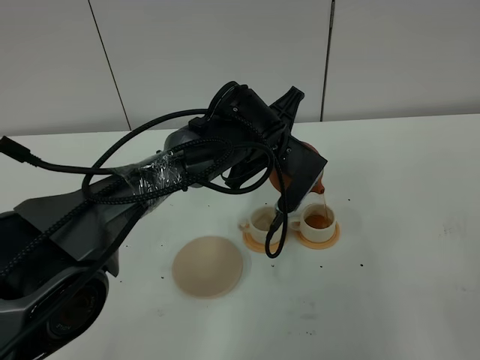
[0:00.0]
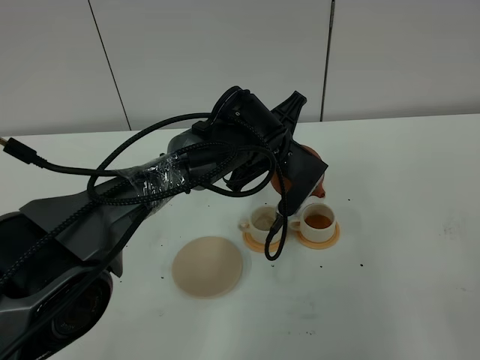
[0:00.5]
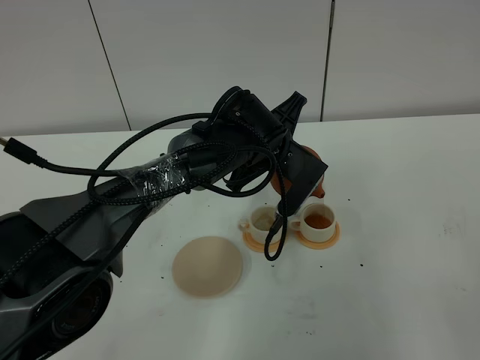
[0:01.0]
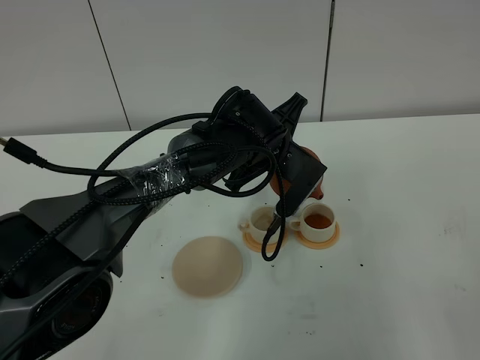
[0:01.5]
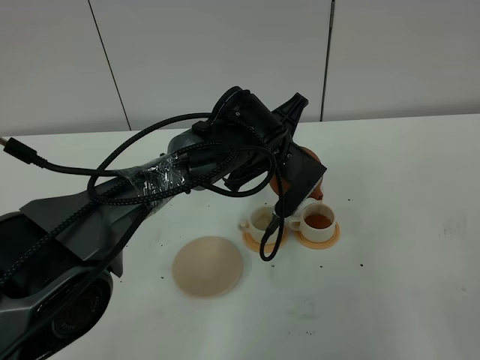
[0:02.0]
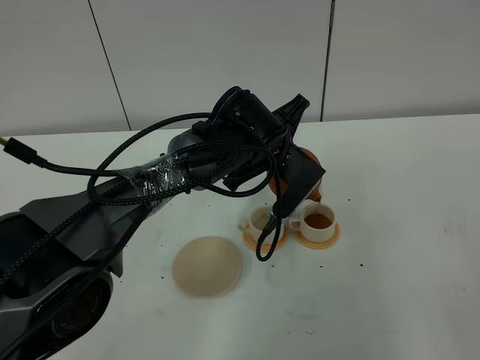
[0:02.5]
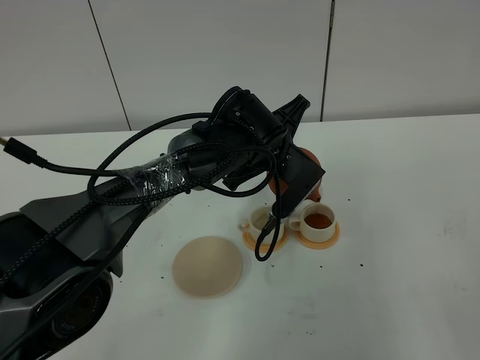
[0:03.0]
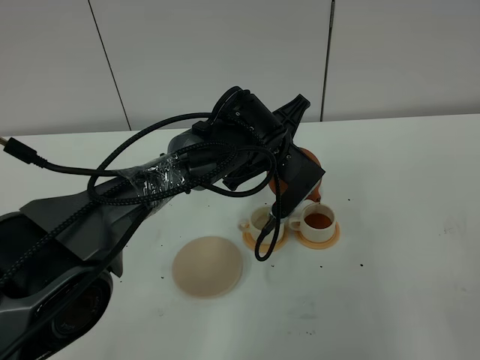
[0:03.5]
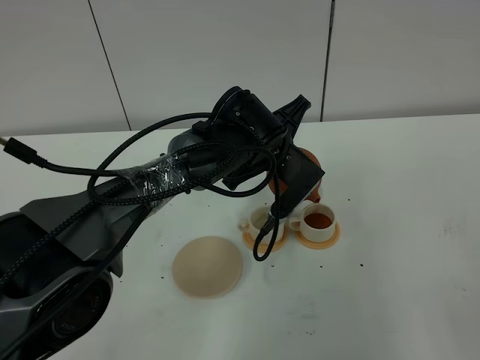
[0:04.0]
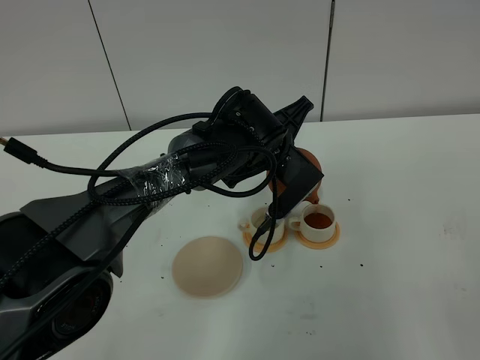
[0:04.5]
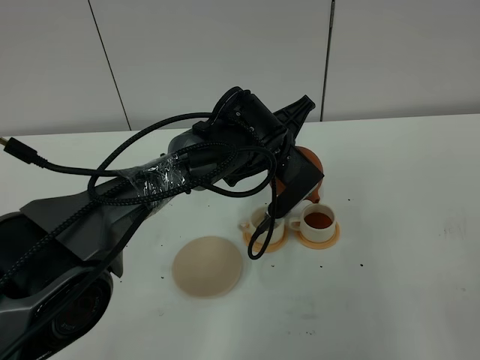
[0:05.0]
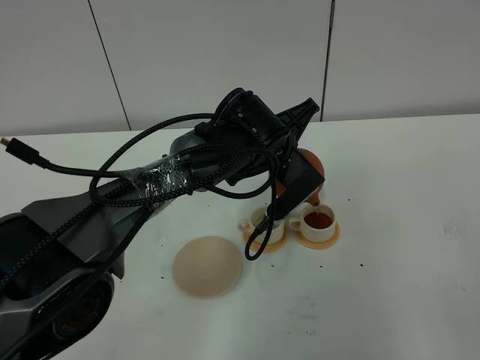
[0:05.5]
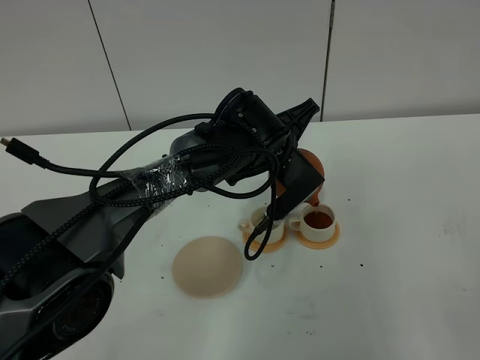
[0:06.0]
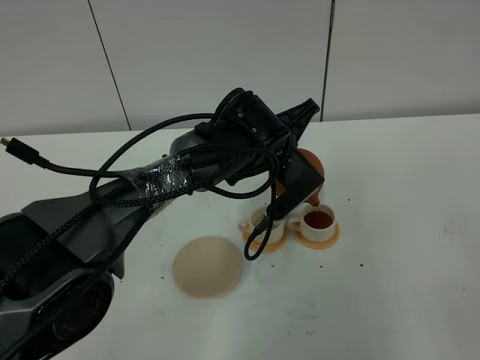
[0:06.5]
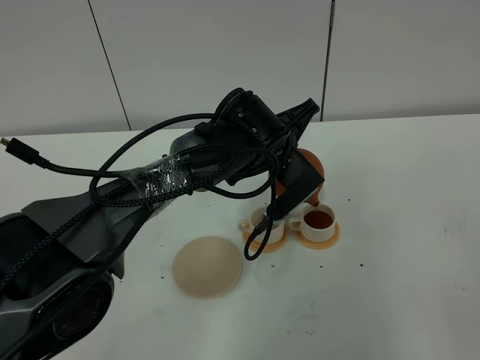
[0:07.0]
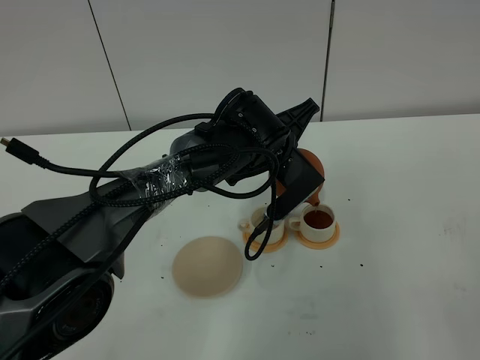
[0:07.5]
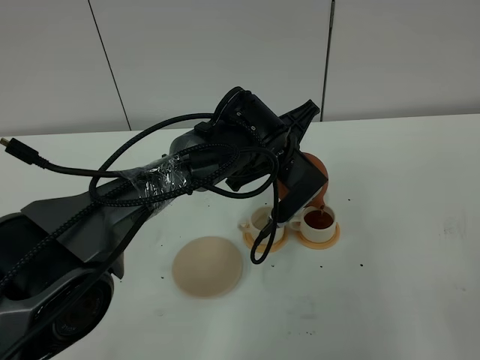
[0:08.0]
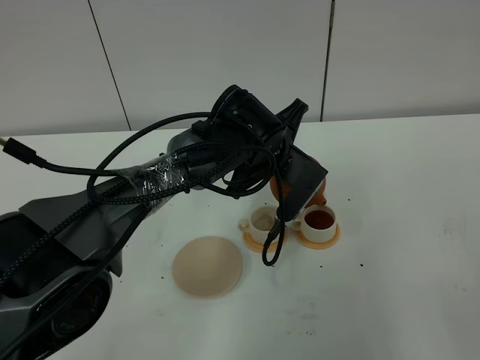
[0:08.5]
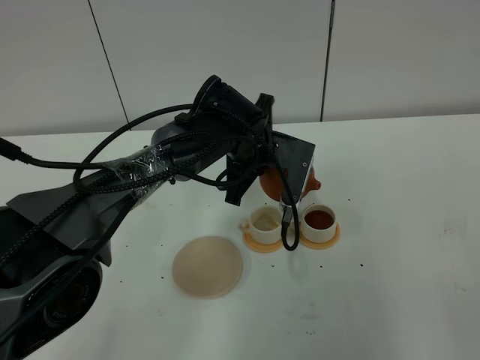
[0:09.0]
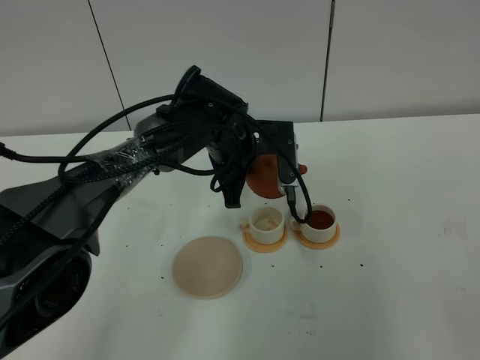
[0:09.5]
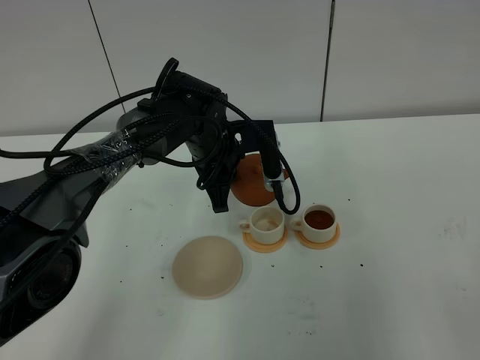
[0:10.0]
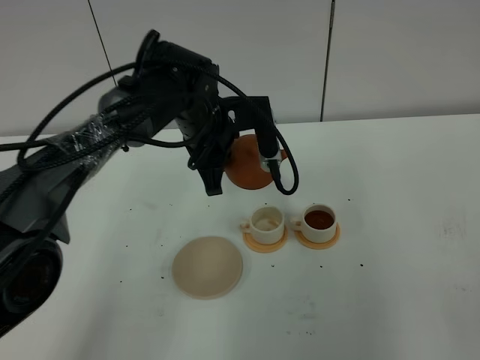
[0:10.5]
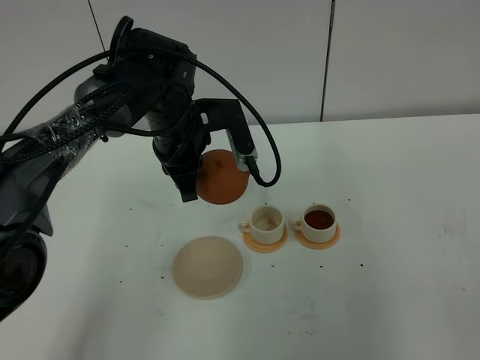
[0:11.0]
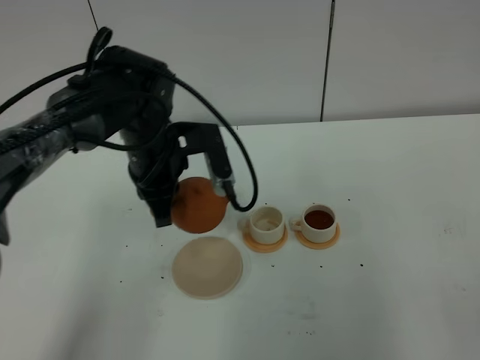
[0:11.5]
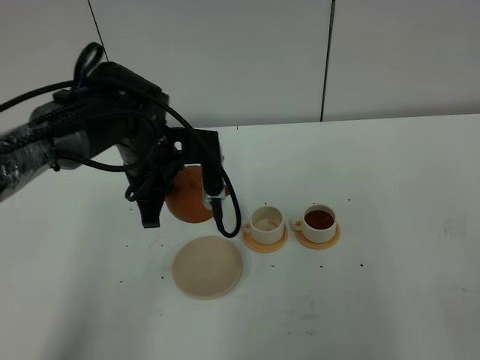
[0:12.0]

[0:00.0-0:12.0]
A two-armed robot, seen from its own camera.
Task of the whole recording: grasp the brown teapot and pour the tea into the two white teacups one by one, put the brown teapot back in its original place.
0:00.0 to 0:02.0: Neither gripper changes place.
0:02.0 to 0:04.0: Neither gripper changes place.
0:04.0 to 0:06.0: The grippers stay close to where they were, moving slightly.
0:06.0 to 0:08.0: Neither gripper changes place.
0:08.0 to 0:10.0: The left gripper heads to the left, covering some 10 cm.
0:10.0 to 0:12.0: The left gripper goes some 10 cm to the left and backward.

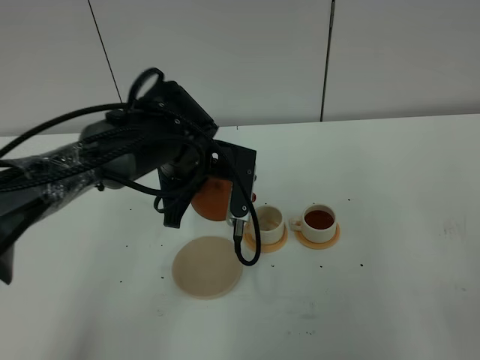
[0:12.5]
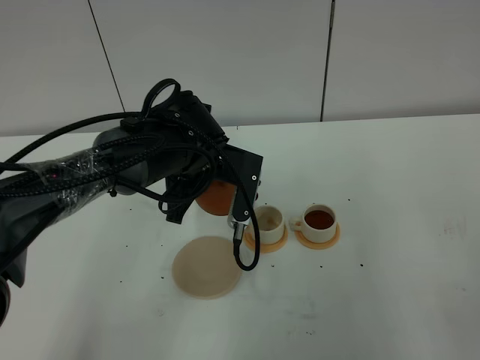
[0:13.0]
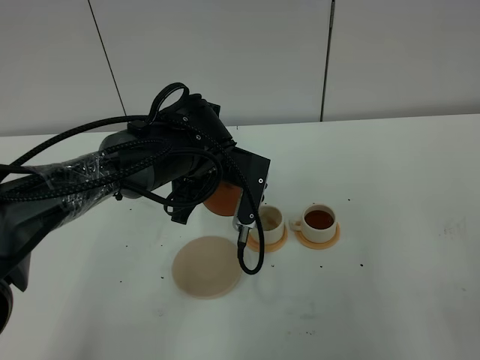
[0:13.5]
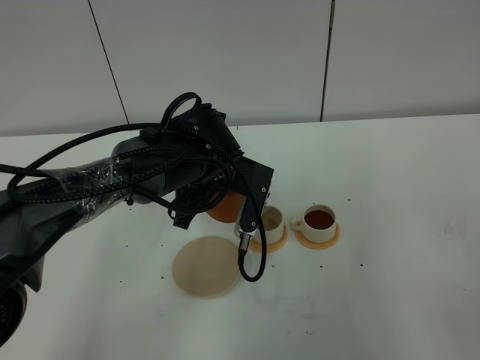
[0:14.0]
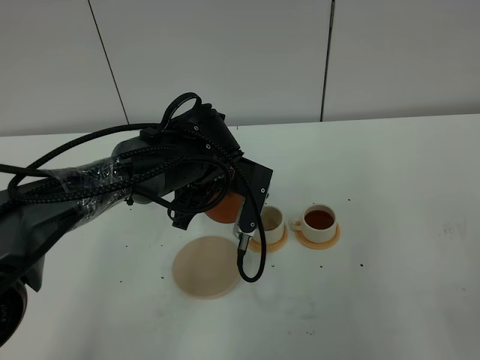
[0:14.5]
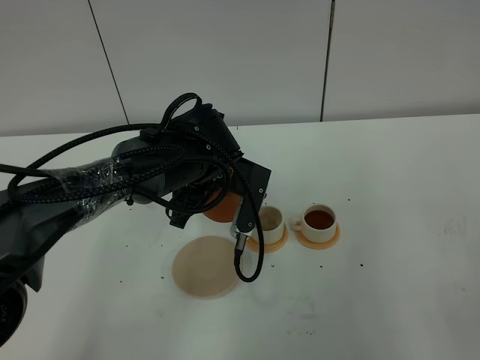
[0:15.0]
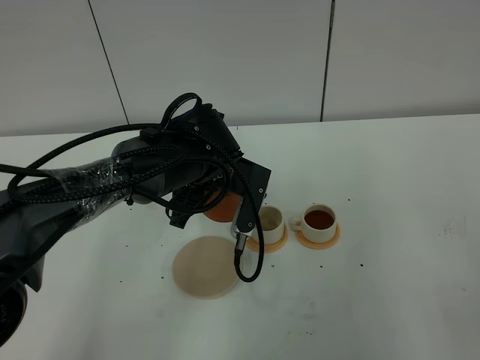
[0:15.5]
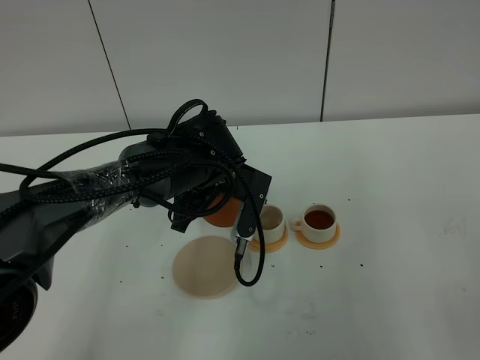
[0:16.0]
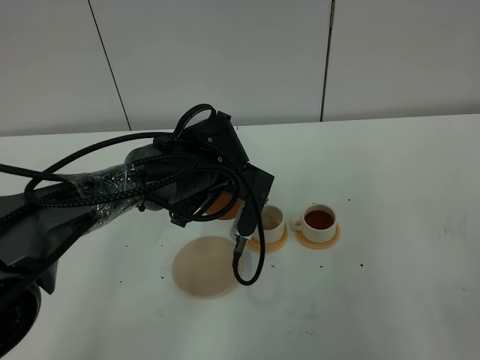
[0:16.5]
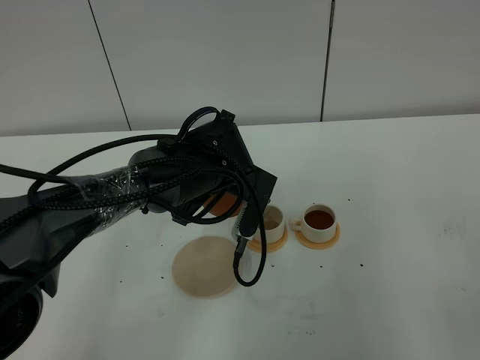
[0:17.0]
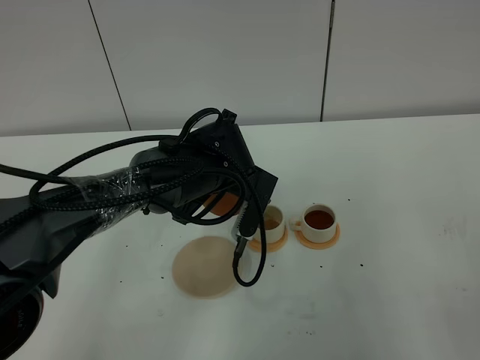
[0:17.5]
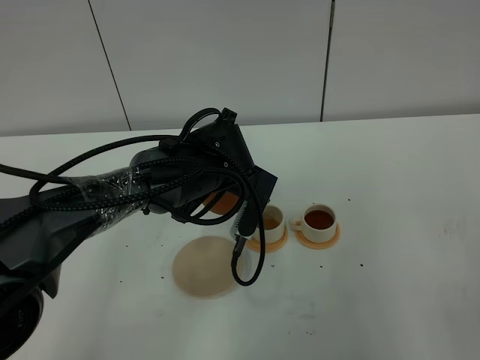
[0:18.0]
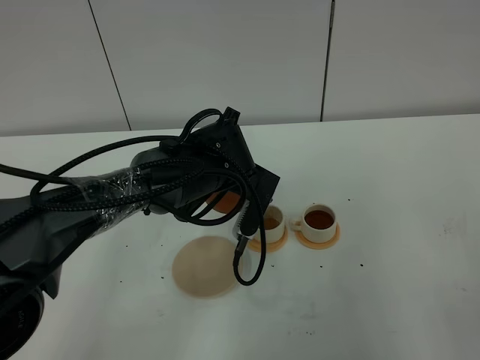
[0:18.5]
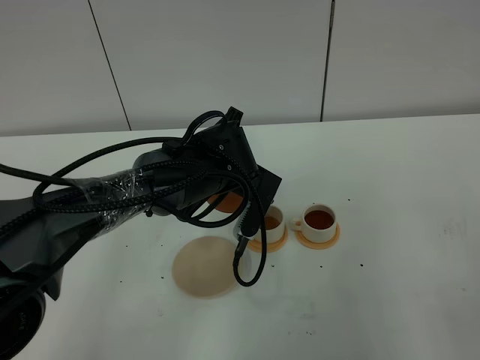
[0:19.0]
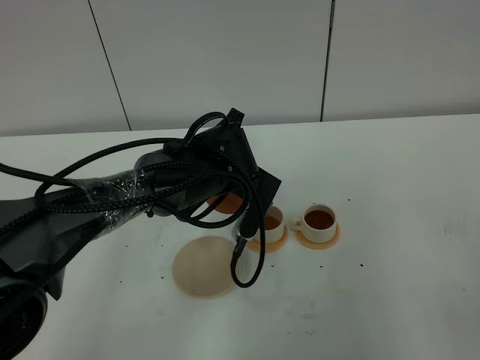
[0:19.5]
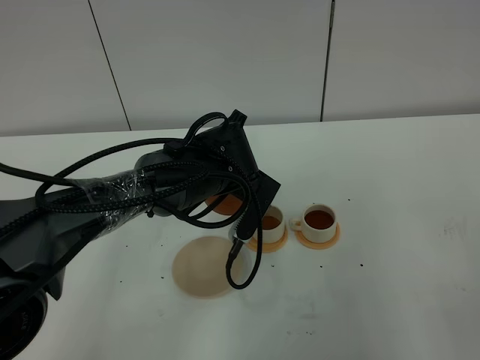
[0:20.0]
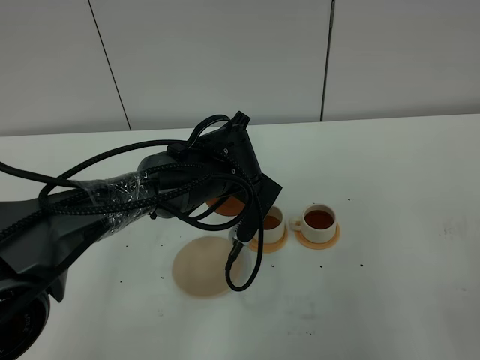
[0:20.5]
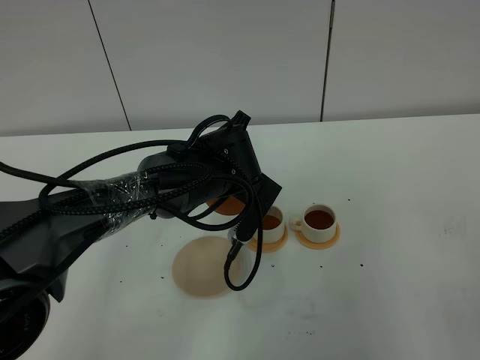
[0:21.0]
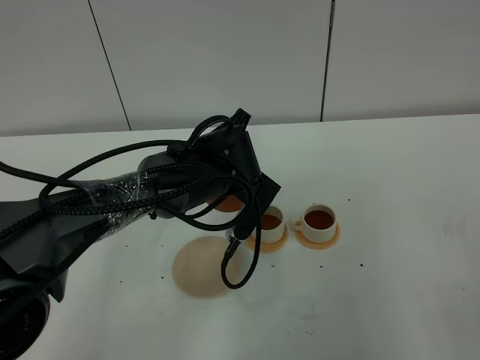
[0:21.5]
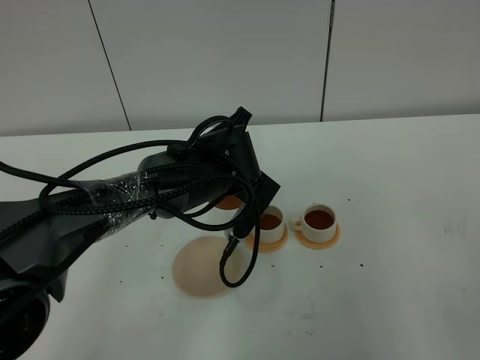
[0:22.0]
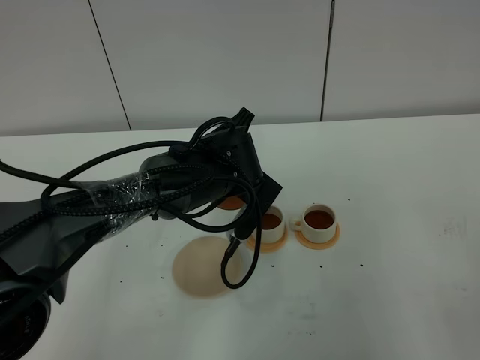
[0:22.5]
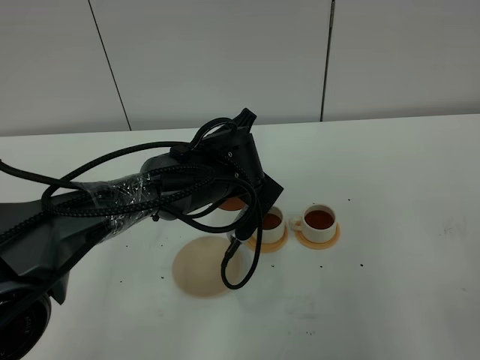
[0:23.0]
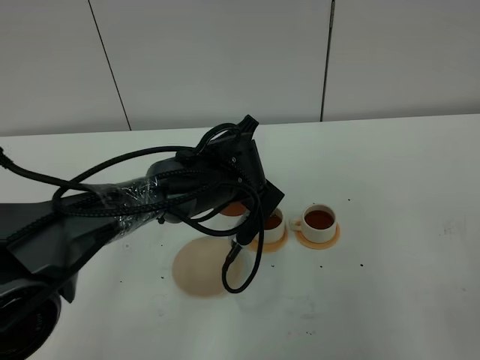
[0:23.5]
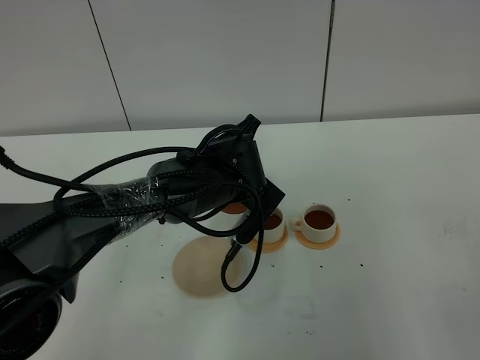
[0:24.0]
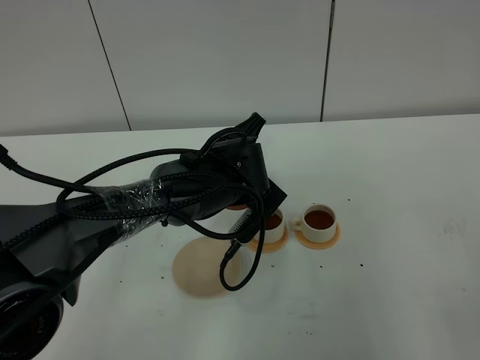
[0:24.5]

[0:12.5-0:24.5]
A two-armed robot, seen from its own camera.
Task of the whole recording: grasp the brown teapot and pour the tea into the two white teacups one by one, put the brown teapot back in its original place.
0:12.5 to 0:16.5: There are only small adjustments of the grippers.
0:16.5 to 0:18.5: The two grippers keep their place.
0:18.5 to 0:20.5: The grippers move only a little.
0:20.5 to 0:22.5: Both grippers stay about where they are.
0:22.5 to 0:24.5: The grippers move only a little.

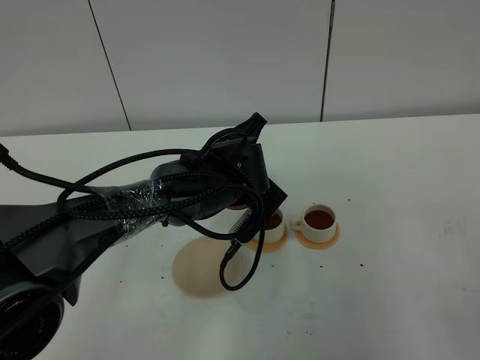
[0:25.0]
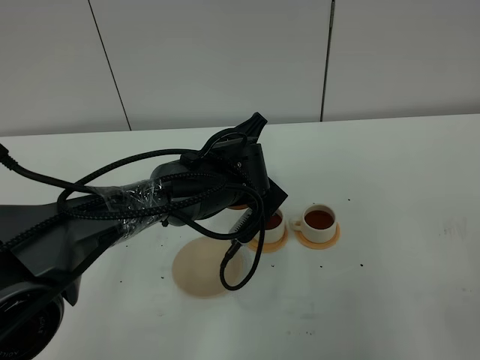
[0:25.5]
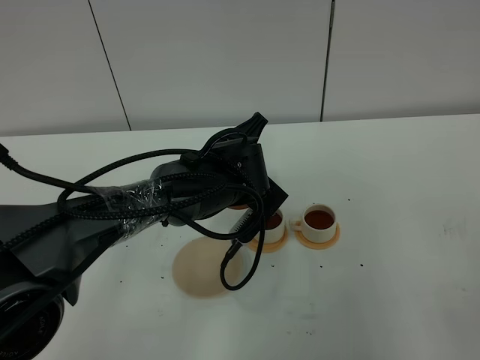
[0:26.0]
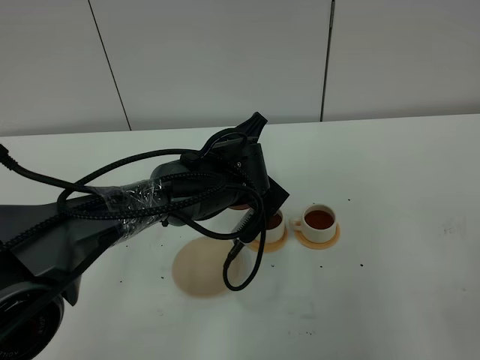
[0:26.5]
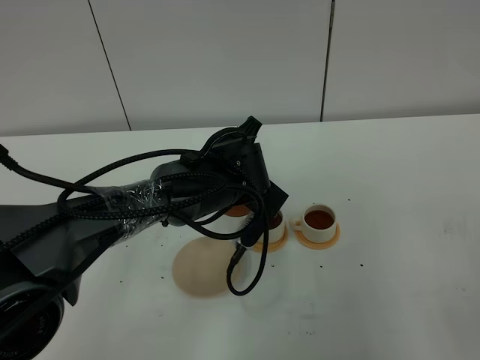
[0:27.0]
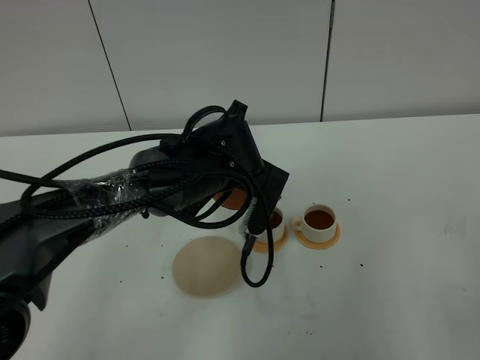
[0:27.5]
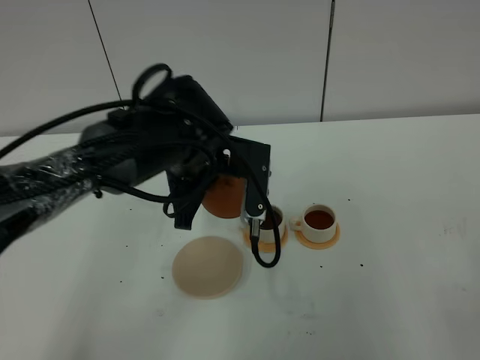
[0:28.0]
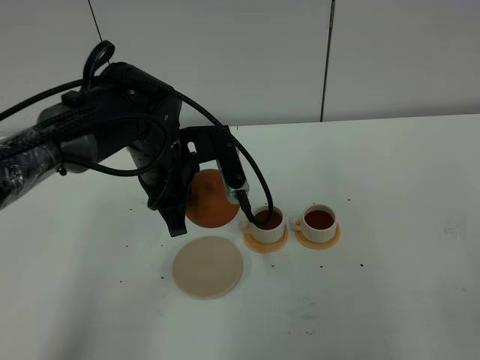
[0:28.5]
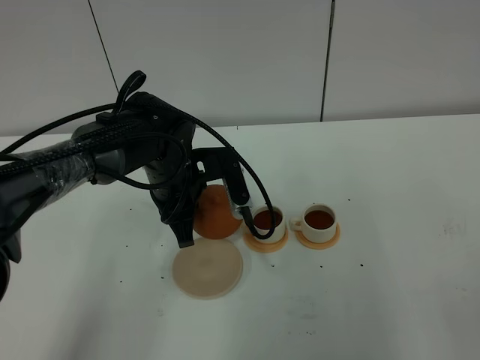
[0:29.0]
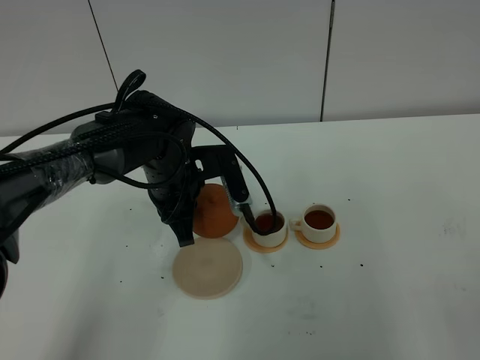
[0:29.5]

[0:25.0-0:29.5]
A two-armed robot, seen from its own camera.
Task of the whole recording: grasp the brown teapot and pour the tea into the two white teacups one by one, put the brown teapot back in its original place.
Step, 0:25.0 to 0:27.0: Pour tea into the teacup with the left gripper.
0:25.0 to 0:27.0: The grippers stay close to where they were, moving slightly.
0:27.0 to 0:29.5: The left gripper moves to the left, about 10 cm.
